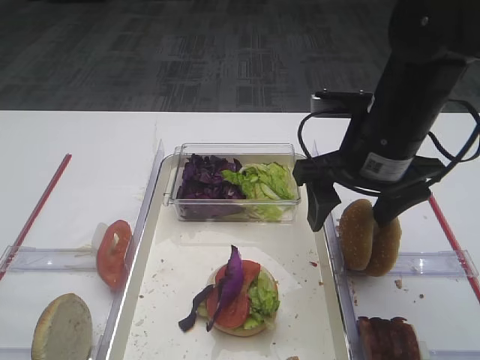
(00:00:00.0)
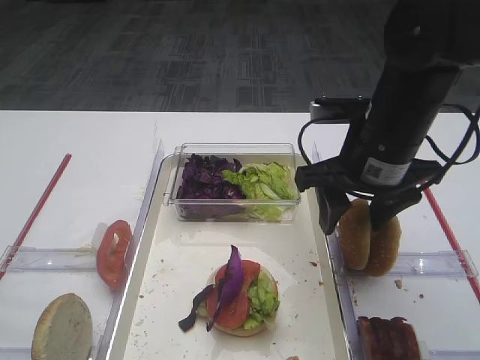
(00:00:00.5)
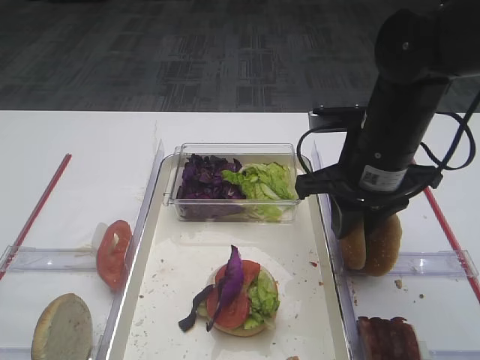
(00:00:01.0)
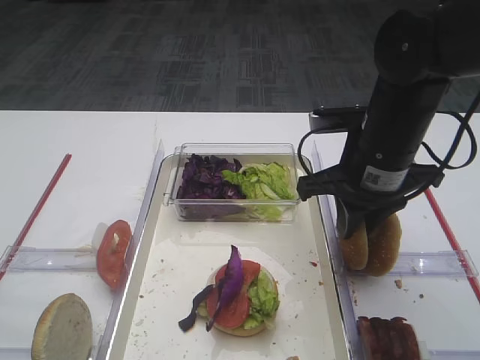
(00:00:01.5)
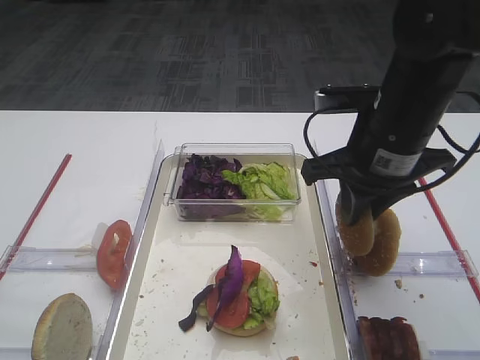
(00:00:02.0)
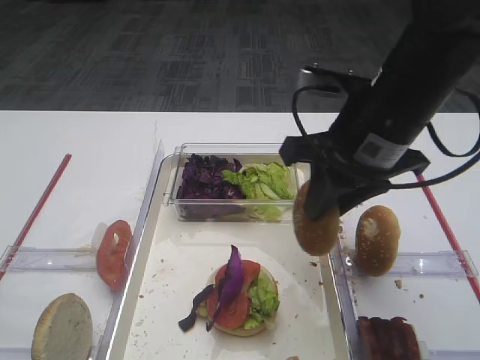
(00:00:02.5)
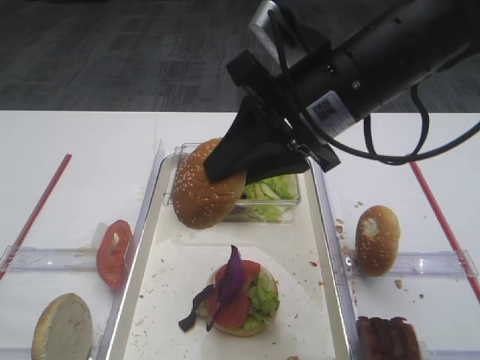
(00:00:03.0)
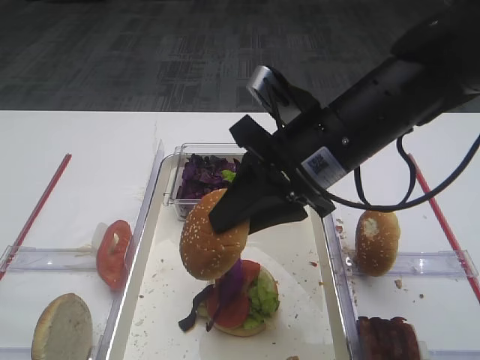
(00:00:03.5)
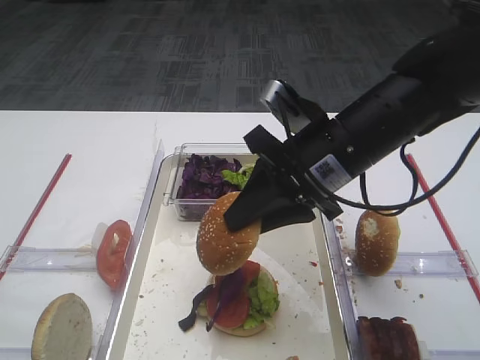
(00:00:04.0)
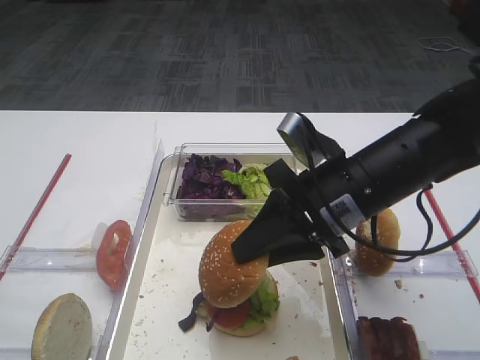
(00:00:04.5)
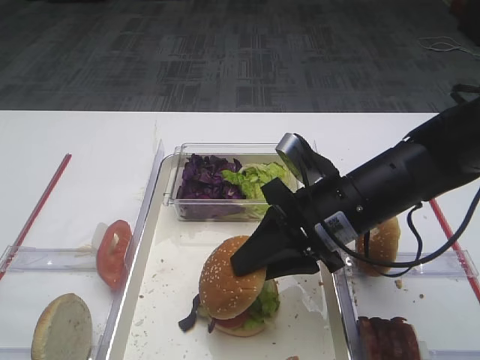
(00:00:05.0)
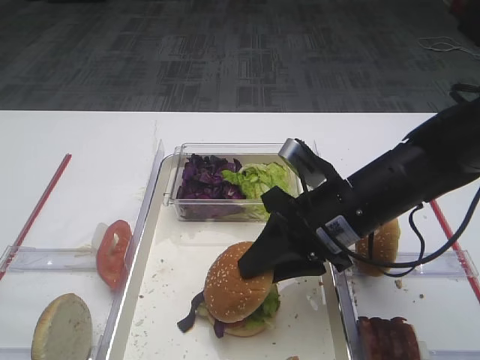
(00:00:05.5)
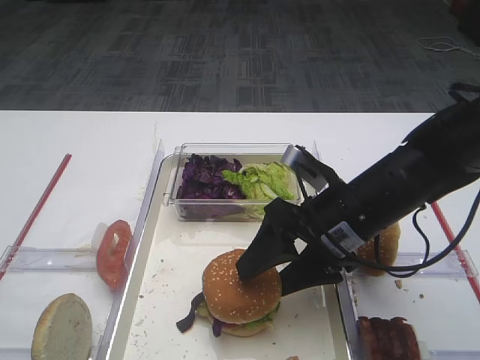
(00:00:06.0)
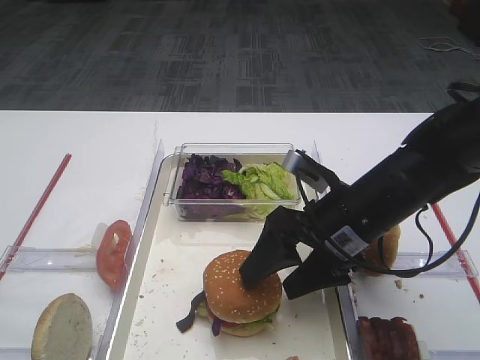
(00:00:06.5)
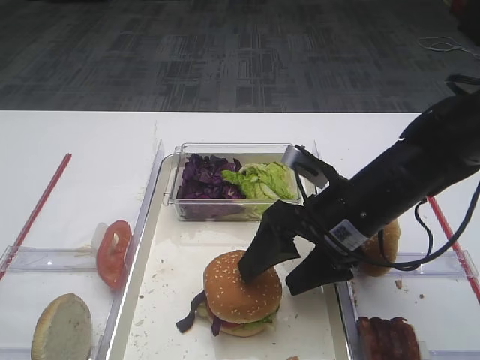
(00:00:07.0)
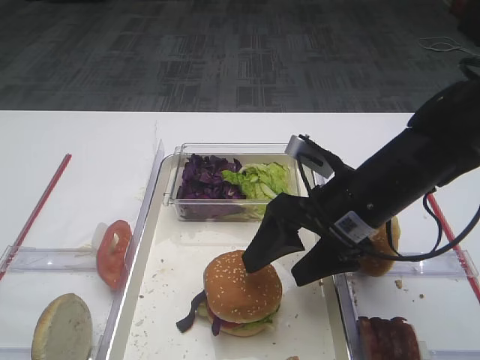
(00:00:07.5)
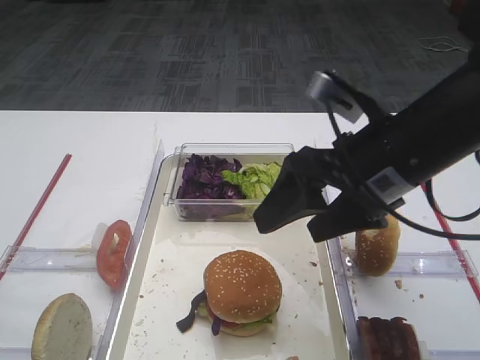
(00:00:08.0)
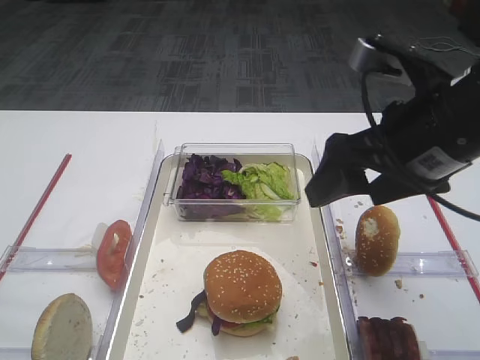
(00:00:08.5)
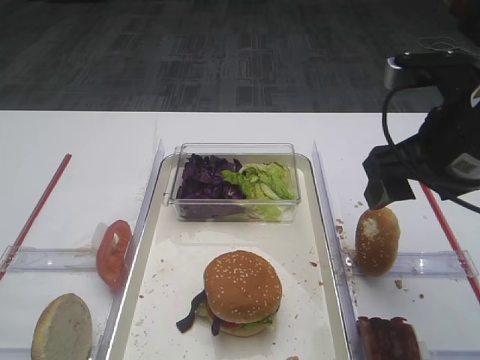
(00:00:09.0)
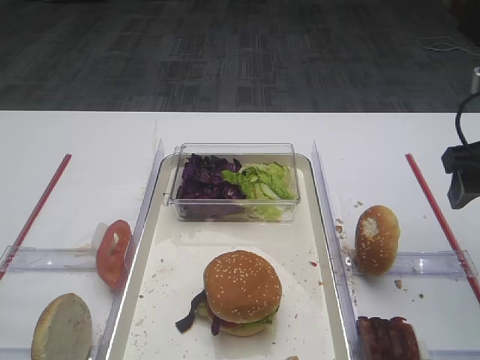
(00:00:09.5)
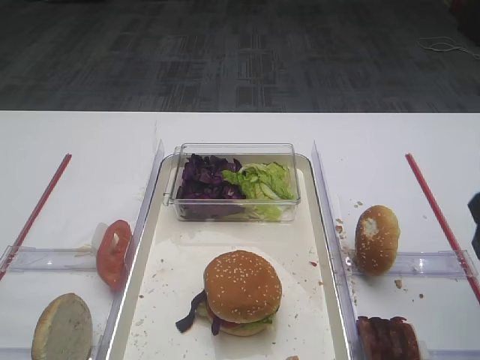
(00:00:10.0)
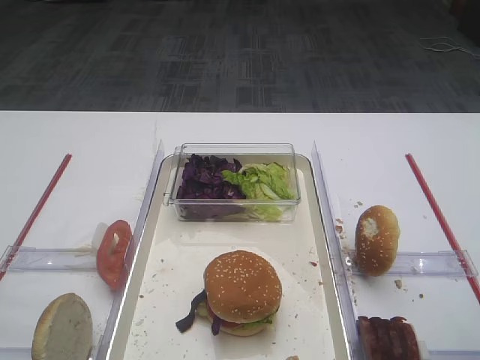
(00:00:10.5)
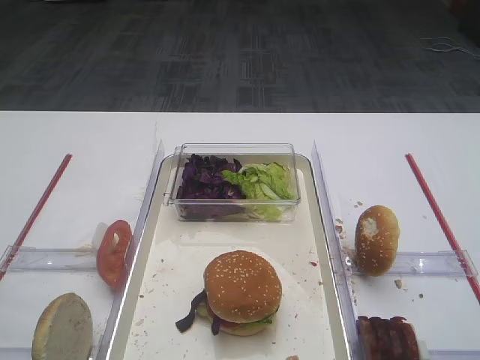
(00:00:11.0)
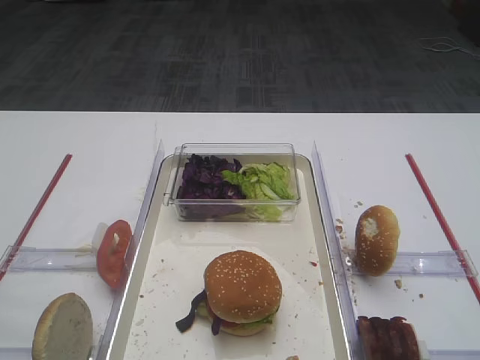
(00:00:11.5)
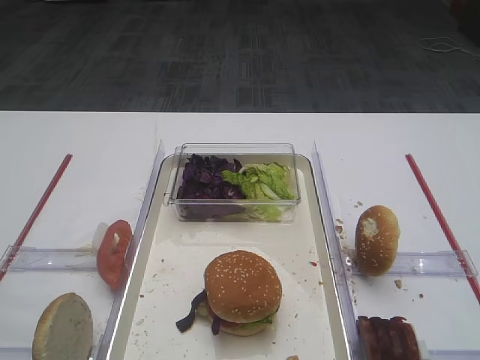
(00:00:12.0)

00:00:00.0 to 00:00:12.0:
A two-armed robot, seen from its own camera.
Step, 00:00:00.0 to 00:00:02.0: Pick up the hamburger lid with the right gripper.
Step, 00:00:02.5 to 00:00:07.5: Place the hamburger lid on the purple cabbage with the right gripper.
00:00:00.0 to 00:00:02.0: The right gripper closes up.
00:00:04.0 to 00:00:06.0: The right gripper shifts about 5 cm downward, and opens its fingers.
00:00:06.0 to 00:00:08.0: The right gripper moves upward, roughly 10 cm.
00:00:08.0 to 00:00:10.0: The right gripper heads to the right, covering roughly 15 cm.
00:00:10.0 to 00:00:12.0: The right gripper is displaced backward by approximately 20 cm.

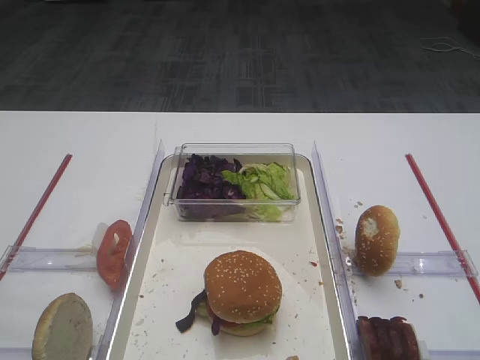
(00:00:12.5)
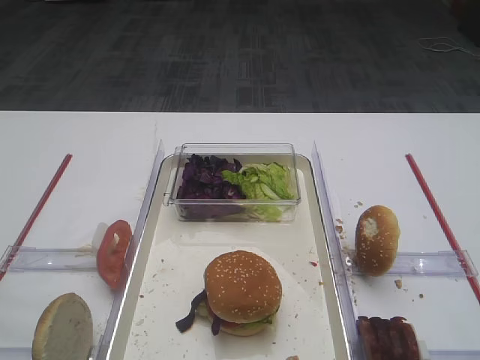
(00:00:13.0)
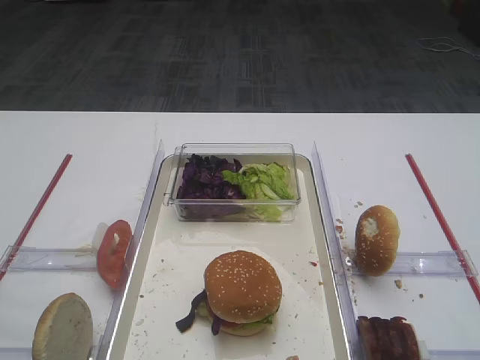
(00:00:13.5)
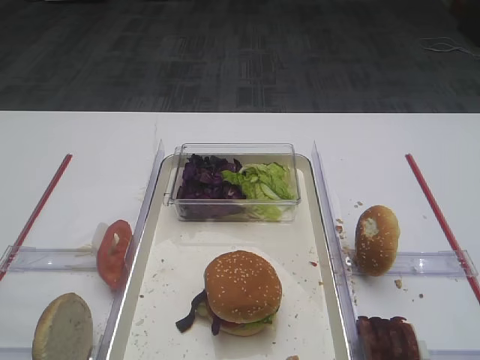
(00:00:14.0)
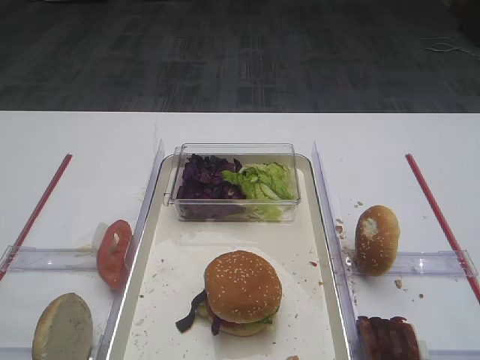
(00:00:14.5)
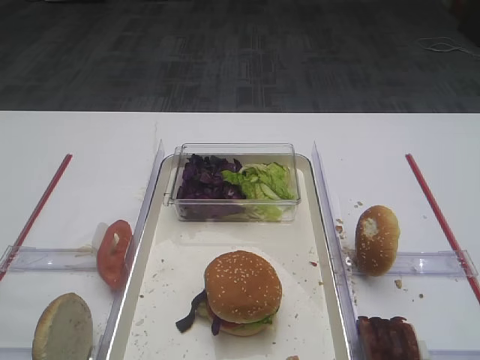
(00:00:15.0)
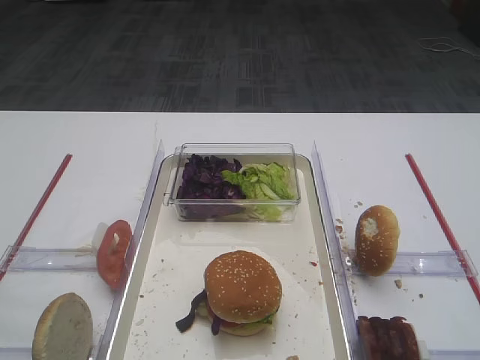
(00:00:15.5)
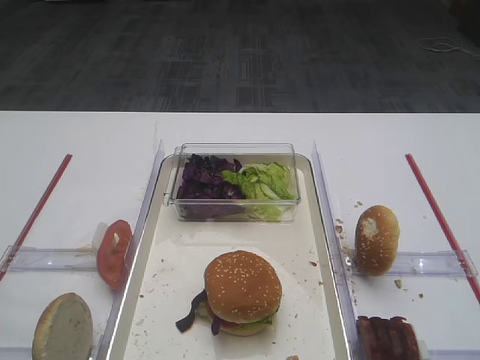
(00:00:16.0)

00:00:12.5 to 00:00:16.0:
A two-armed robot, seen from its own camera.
00:00:12.5 to 00:00:16.0: Both grippers stay about where they are.

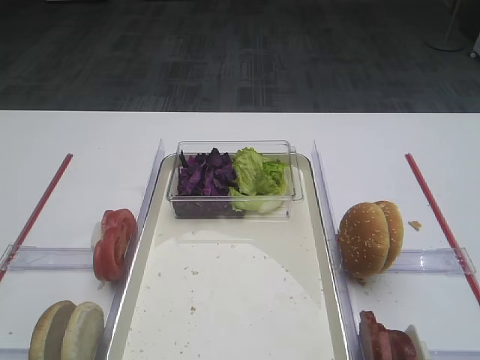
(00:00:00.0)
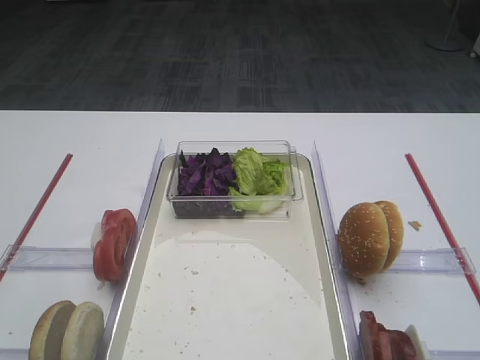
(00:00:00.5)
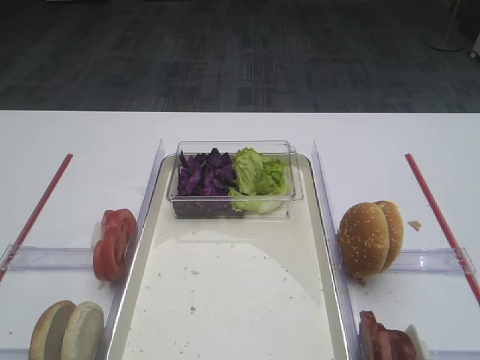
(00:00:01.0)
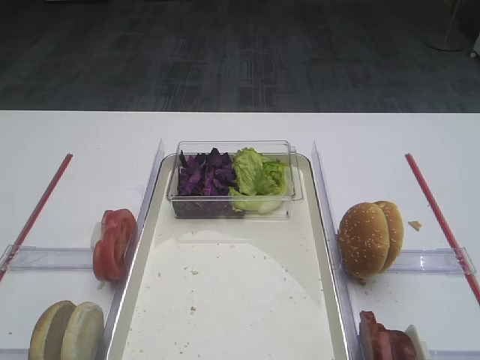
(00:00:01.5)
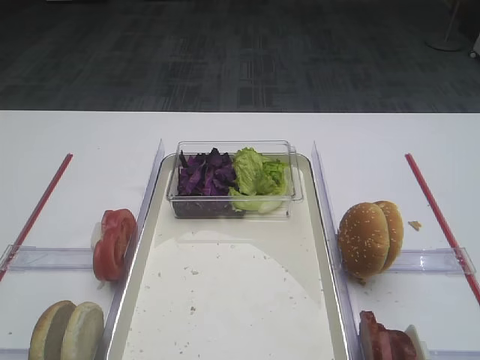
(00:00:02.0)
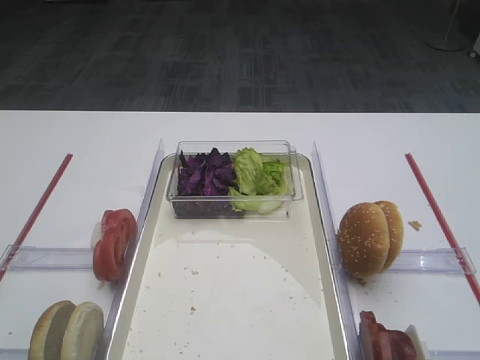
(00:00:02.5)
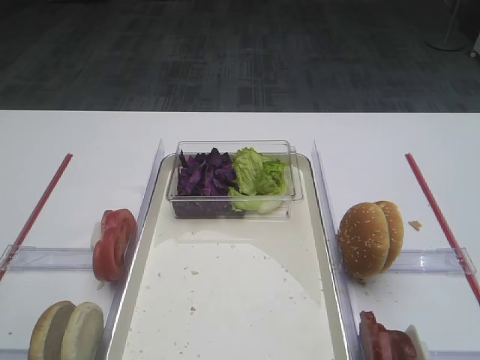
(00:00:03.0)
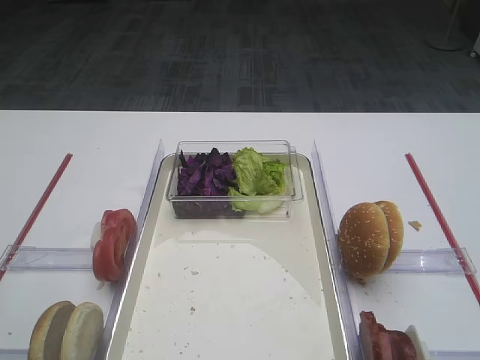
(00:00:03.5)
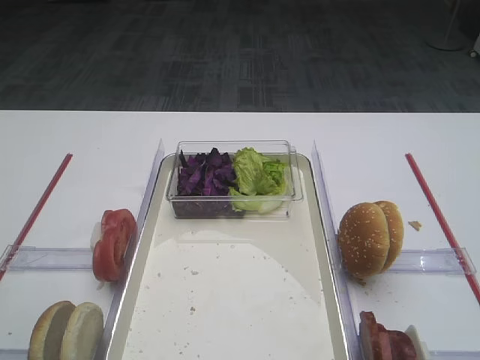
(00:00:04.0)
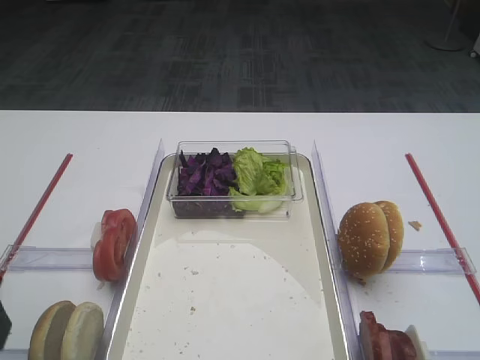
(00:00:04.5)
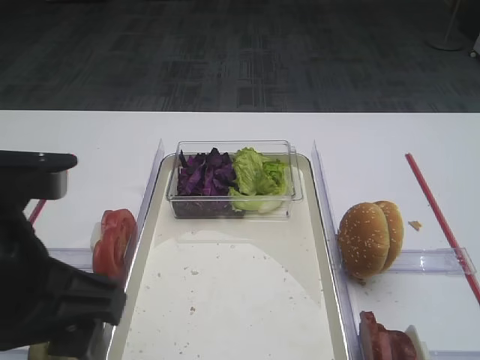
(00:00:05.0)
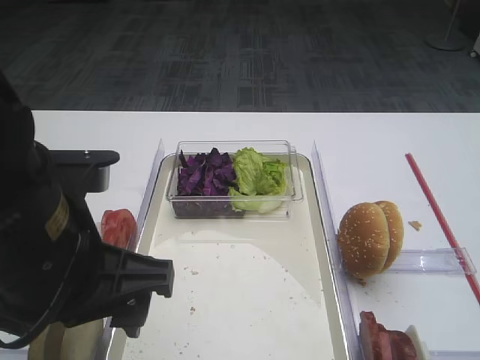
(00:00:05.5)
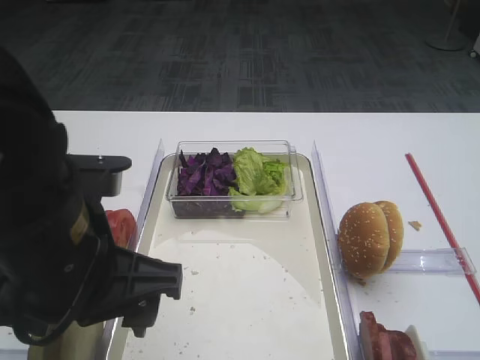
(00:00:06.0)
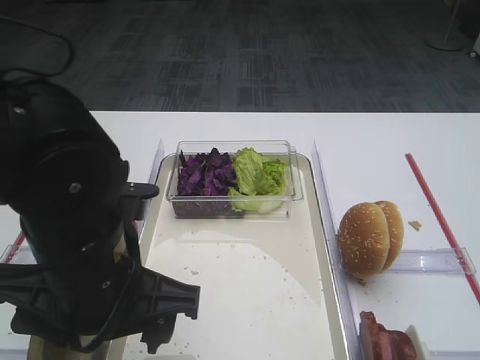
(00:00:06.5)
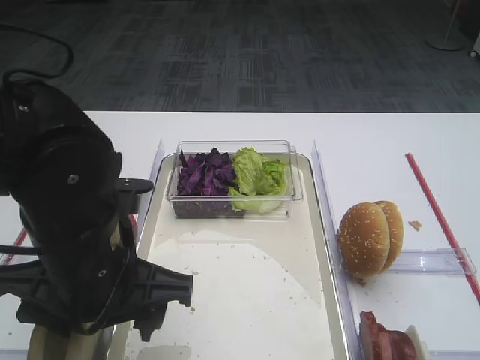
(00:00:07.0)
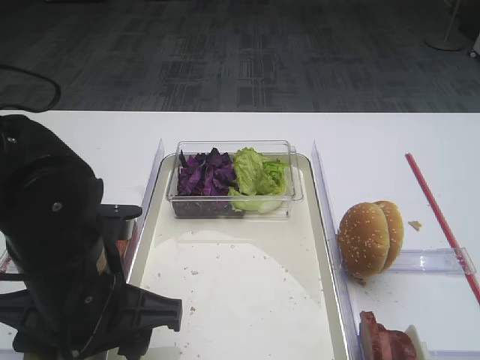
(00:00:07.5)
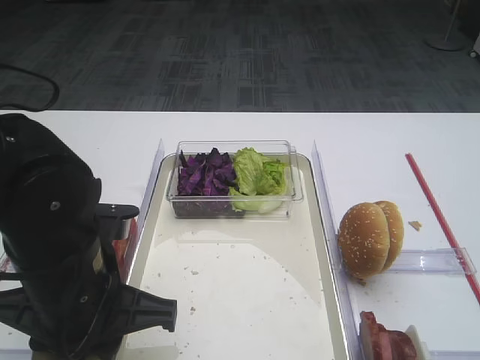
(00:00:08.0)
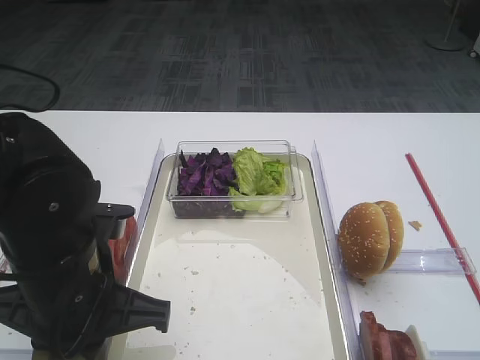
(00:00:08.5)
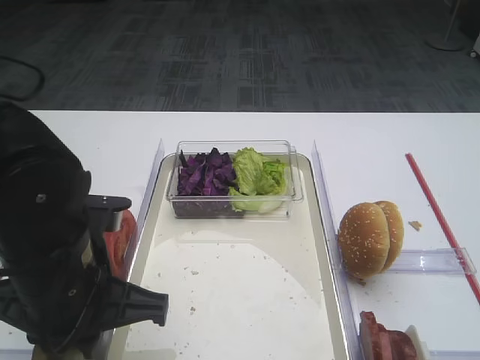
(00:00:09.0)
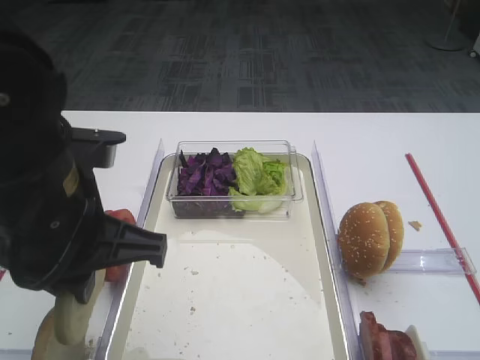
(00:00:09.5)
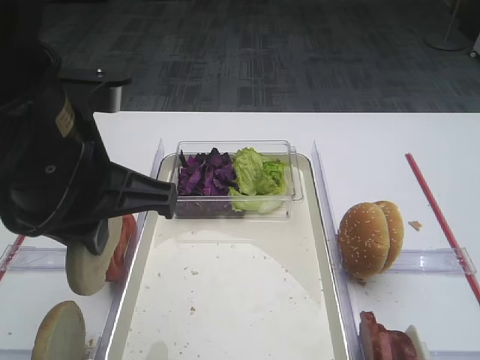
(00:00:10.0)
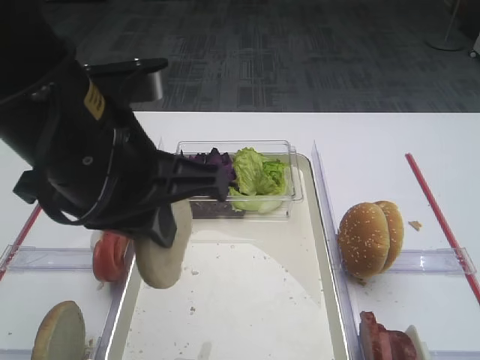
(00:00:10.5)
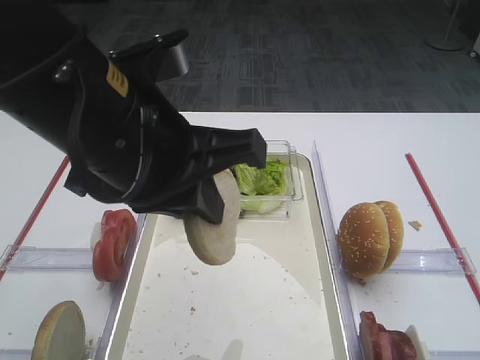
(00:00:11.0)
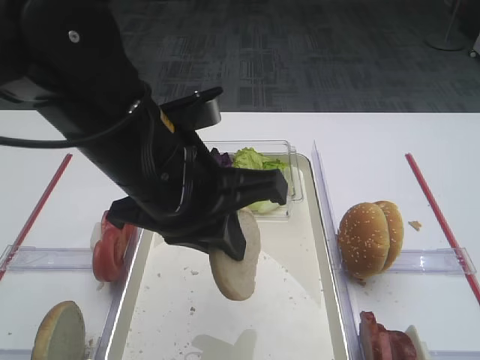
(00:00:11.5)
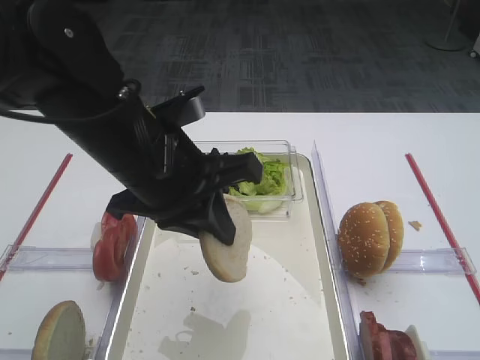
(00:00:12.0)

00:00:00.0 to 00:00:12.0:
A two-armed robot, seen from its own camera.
Step, 00:00:00.0 to 00:00:09.5: Pick up the bread slice with the left gripper.
00:00:04.0 to 00:00:06.0: The left gripper shifts approximately 15 cm to the right.
00:00:06.0 to 00:00:08.0: The left gripper shifts about 5 cm downward, and closes.
00:00:08.0 to 00:00:10.0: The left gripper is displaced upward by roughly 10 cm.
00:00:10.0 to 00:00:12.0: The left gripper shifts approximately 5 cm forward.
